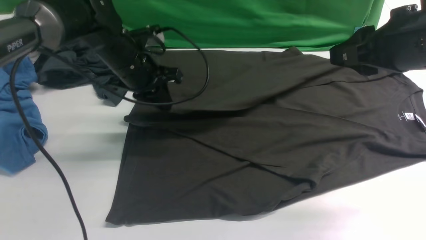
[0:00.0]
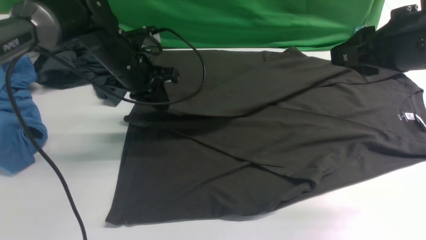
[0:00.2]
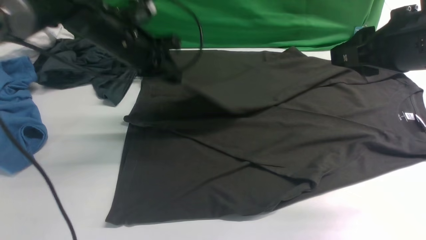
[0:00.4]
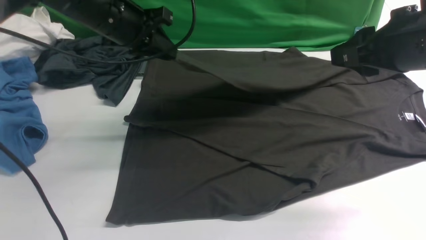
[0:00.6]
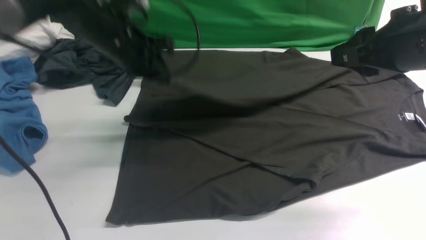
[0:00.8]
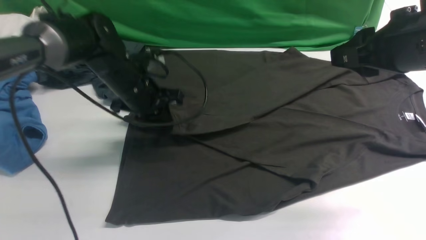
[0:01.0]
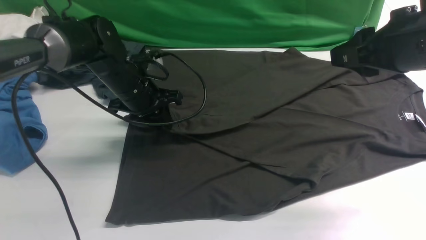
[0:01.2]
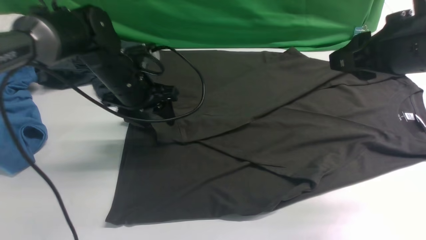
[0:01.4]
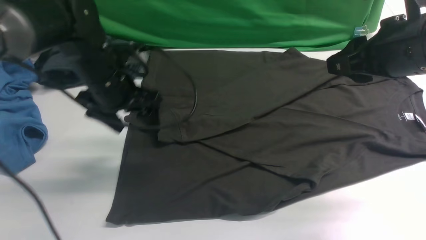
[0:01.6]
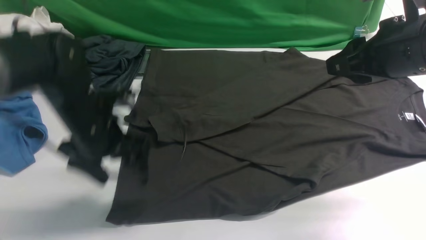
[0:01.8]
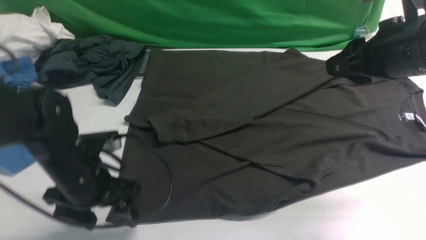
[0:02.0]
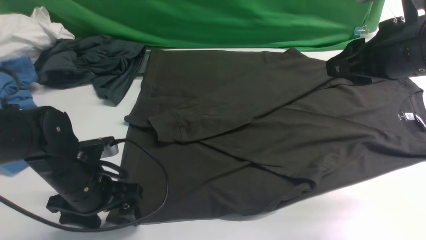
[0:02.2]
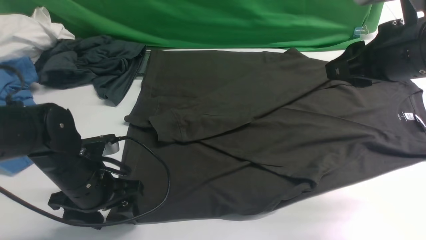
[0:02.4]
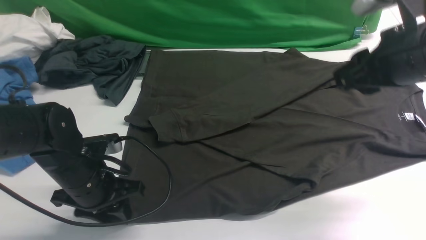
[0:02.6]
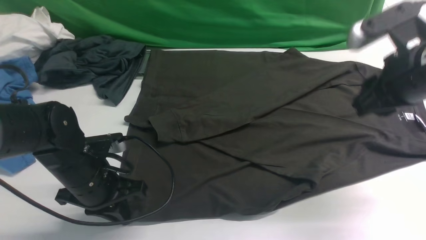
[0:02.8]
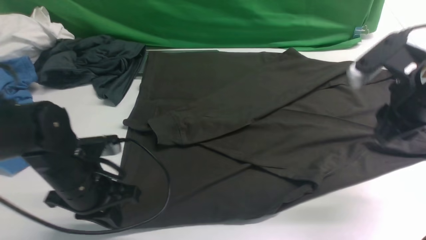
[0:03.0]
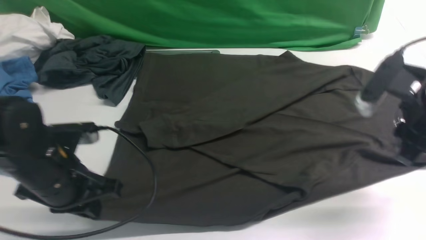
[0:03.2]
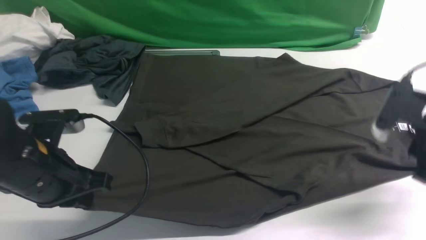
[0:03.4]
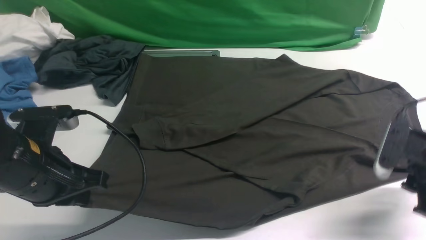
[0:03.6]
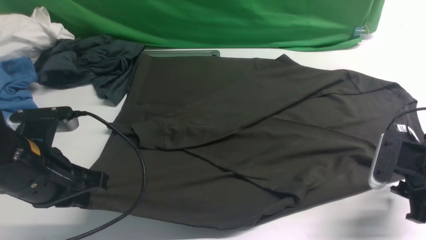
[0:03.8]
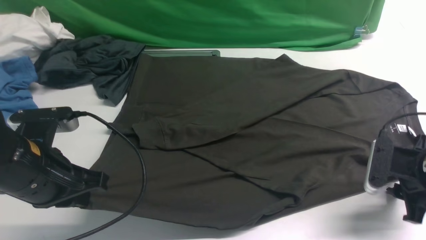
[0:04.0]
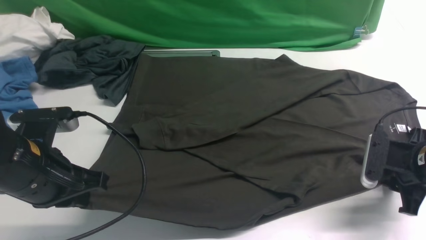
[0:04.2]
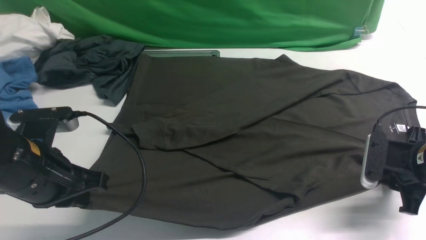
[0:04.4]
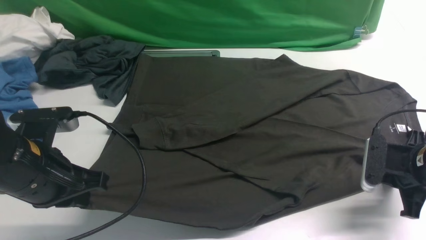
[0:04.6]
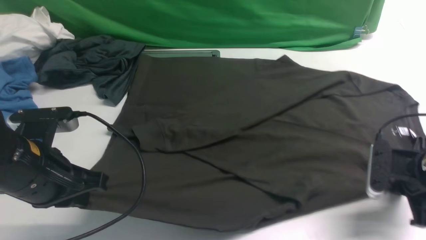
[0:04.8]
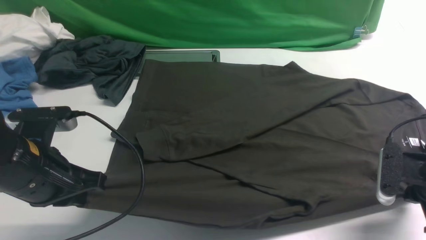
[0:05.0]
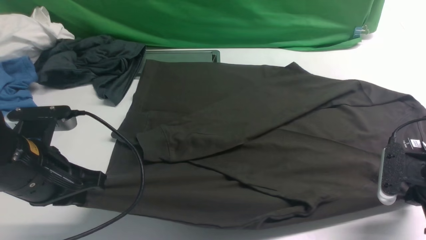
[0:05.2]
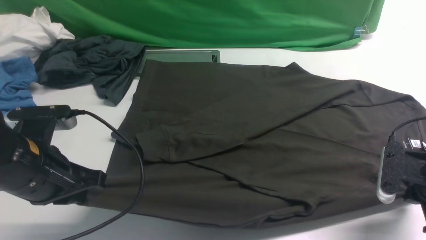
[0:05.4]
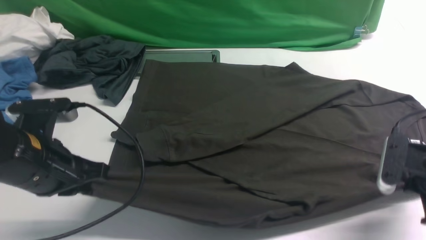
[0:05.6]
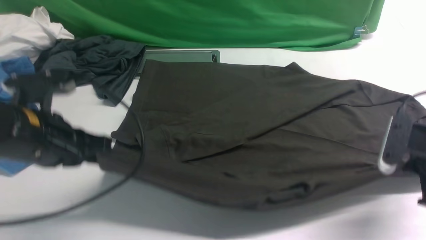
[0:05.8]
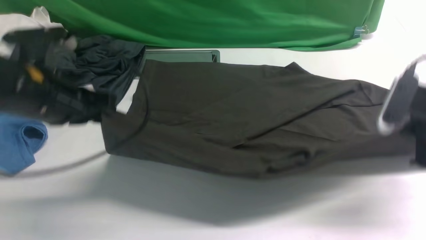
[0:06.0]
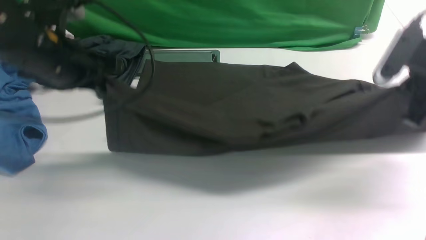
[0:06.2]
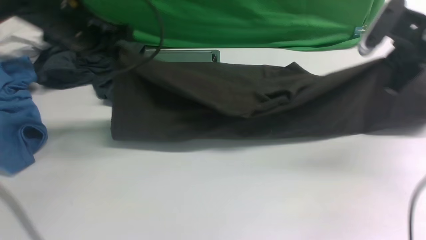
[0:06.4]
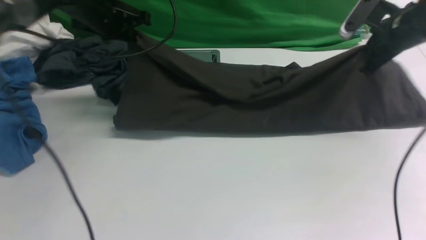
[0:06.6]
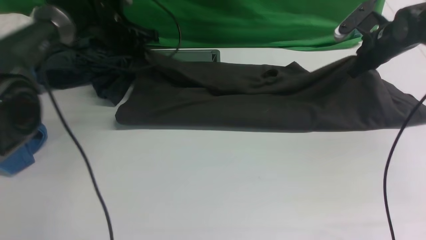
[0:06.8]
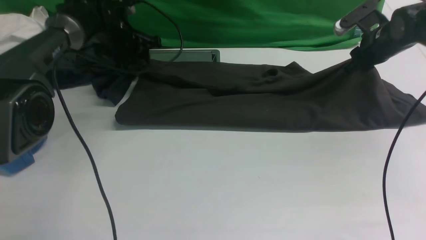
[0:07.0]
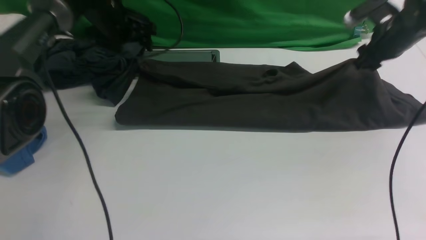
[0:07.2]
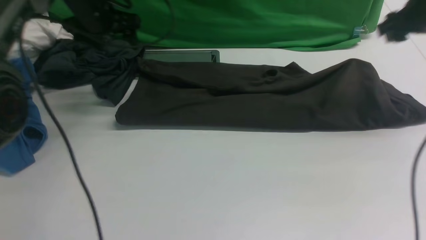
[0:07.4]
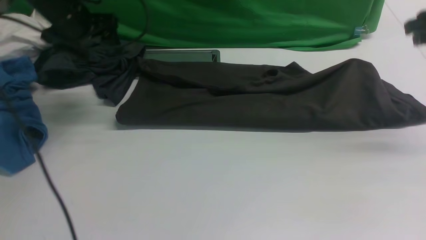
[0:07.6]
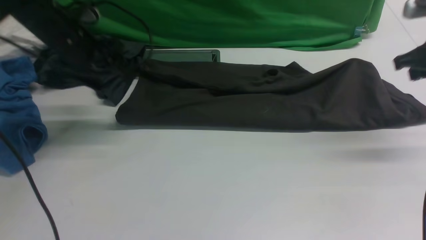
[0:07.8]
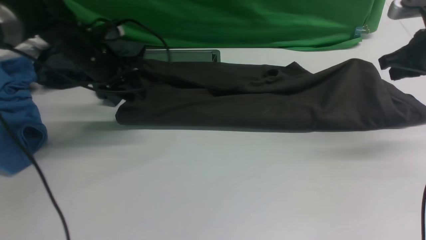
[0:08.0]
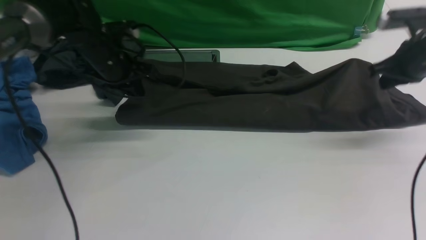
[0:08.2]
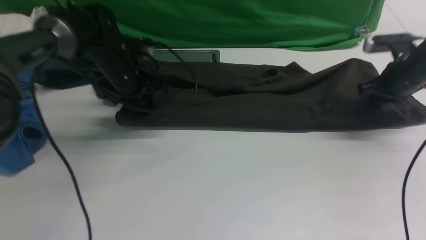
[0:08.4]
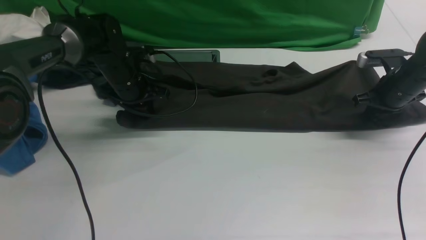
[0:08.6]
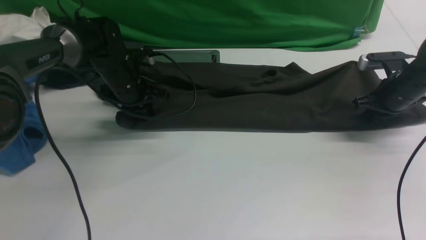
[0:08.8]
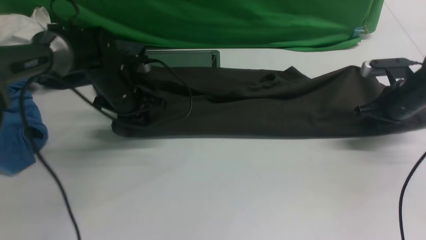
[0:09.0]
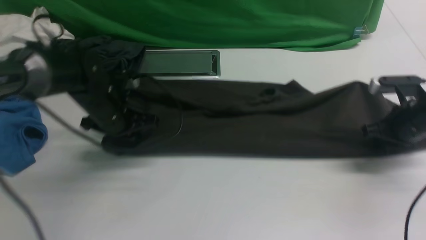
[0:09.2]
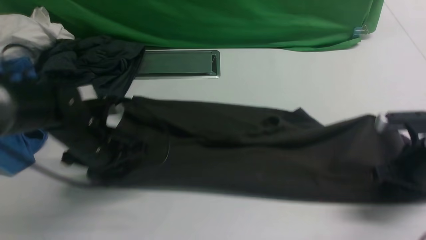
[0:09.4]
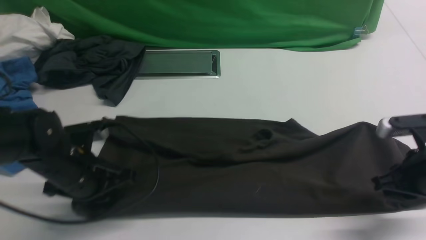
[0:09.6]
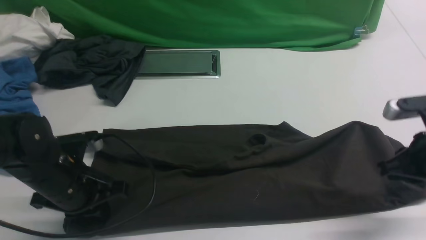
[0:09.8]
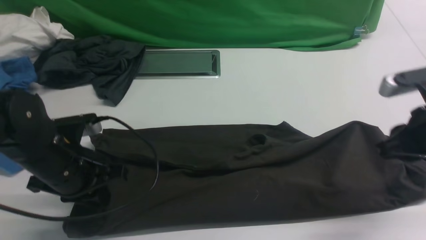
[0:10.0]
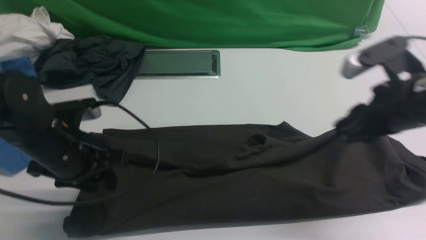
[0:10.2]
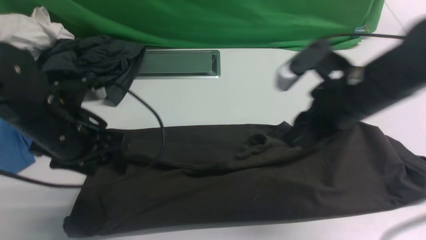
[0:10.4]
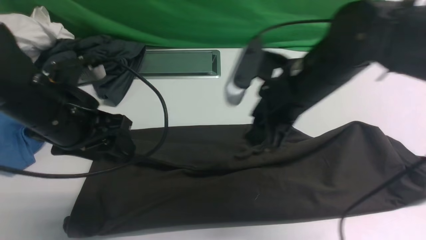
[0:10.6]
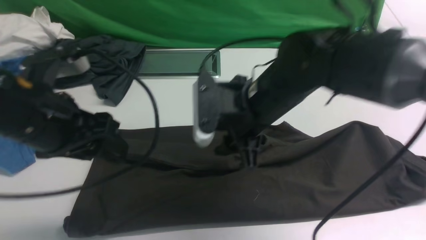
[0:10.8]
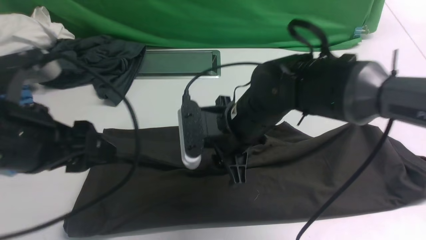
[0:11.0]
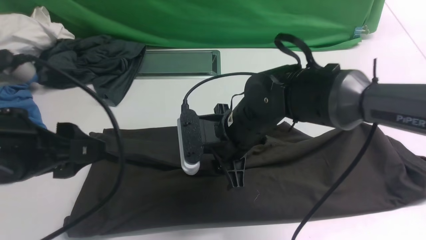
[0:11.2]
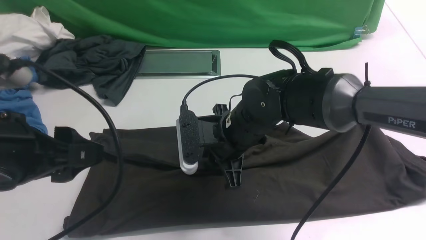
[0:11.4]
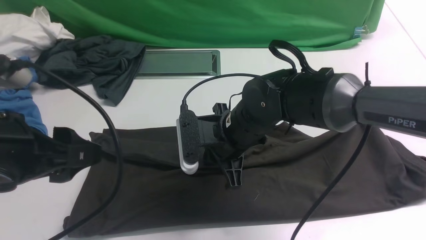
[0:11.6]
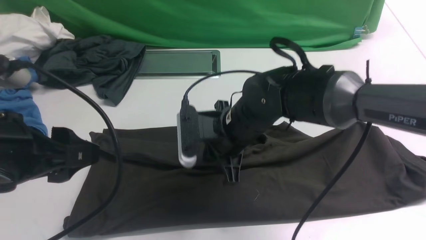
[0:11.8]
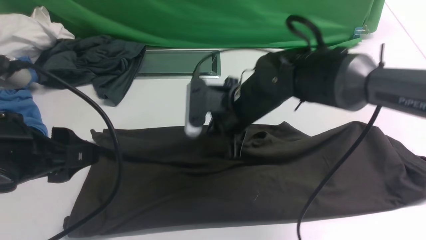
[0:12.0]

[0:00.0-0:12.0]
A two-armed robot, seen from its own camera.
Step, 0:00.0 to 0:01.4: use the left arm to drag and drop the cuff onto the cuff closest to the left arm.
Step, 0:01.6 to 0:05.4: use both arms simultaneously to clamp the lower edge of the clothing fabric.
Step, 0:05.6 to 0:07.2: use both arms to drag the lower edge of the fabric forward and fold it over the upper edge.
0:00.0 to 0:01.6: The left gripper travels backward by roughly 5 cm, goes upward and returns, roughly 5 cm each way, and opens up.
0:01.6 to 0:03.0: The left gripper shifts some 10 cm backward, and closes up. The right gripper heads downward, covering about 5 cm.
0:03.0 to 0:04.4: The left gripper heads upward, covering about 5 cm; the right gripper is displaced downward by approximately 15 cm.
0:04.4 to 0:06.0: The right gripper heads upward, covering some 10 cm, and closes up. The left gripper shifts about 10 cm forward and upward.
0:06.0 to 0:07.6: The right gripper goes roughly 15 cm forward and upward, and opens. Meanwhile the left gripper travels forward by approximately 20 cm, and opens its fingers.
0:07.6 to 0:09.0: The left gripper goes about 15 cm downward, to the right and backward, and closes up, while the right gripper moves downward, some 15 cm, and closes up.
0:09.0 to 0:10.4: The left gripper shifts about 20 cm backward and upward, and opens up. Meanwhile the right gripper travels to the left, upward and backward by about 25 cm, and opens its fingers.
0:10.4 to 0:12.0: The left gripper is displaced backward and upward by approximately 15 cm. The right gripper goes some 15 cm to the left, downward and forward, and closes its fingers.

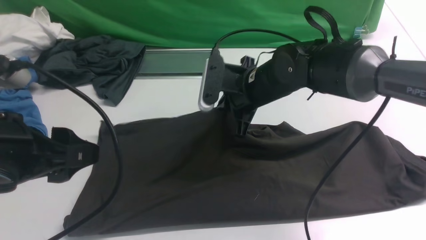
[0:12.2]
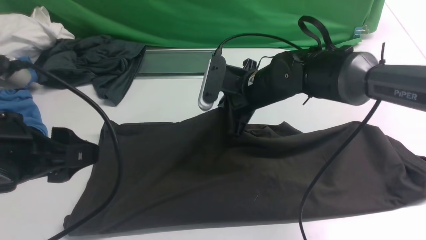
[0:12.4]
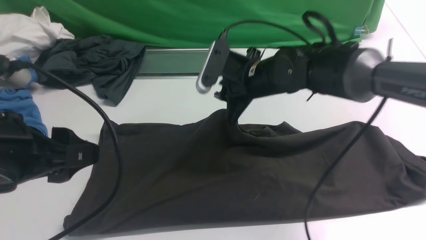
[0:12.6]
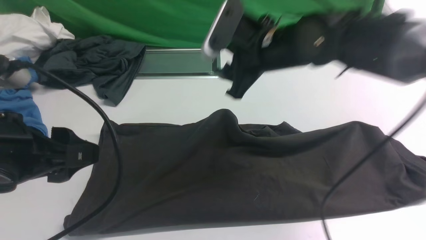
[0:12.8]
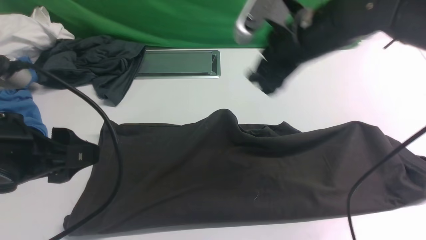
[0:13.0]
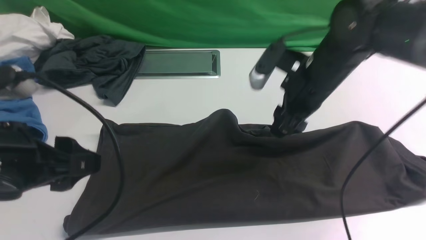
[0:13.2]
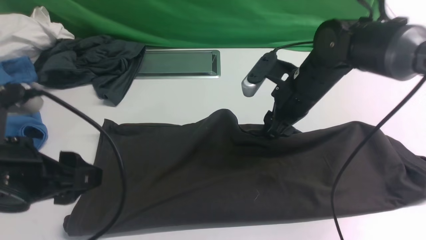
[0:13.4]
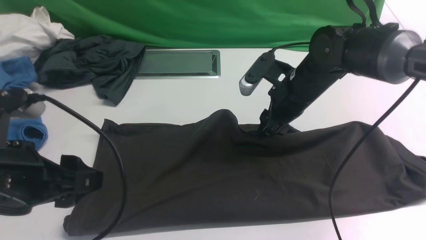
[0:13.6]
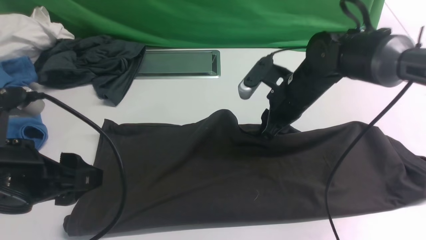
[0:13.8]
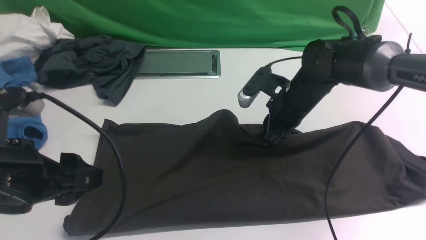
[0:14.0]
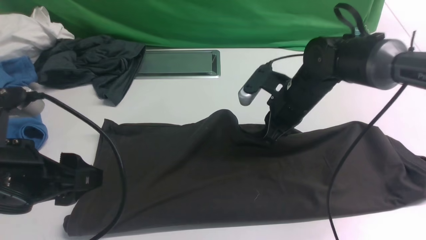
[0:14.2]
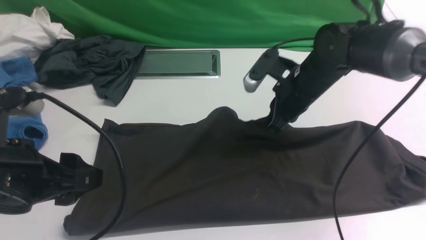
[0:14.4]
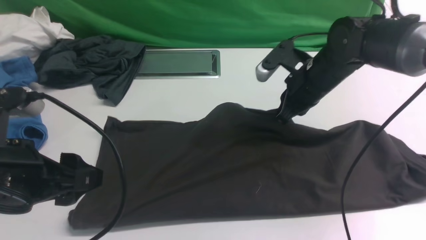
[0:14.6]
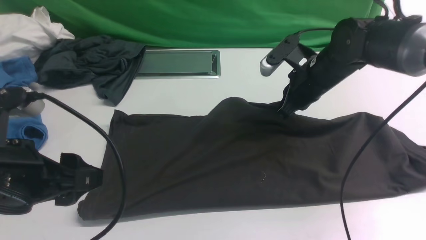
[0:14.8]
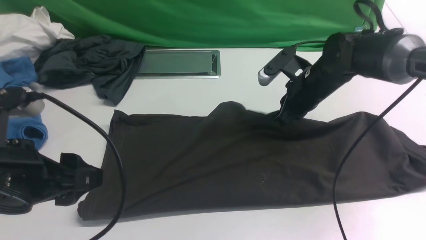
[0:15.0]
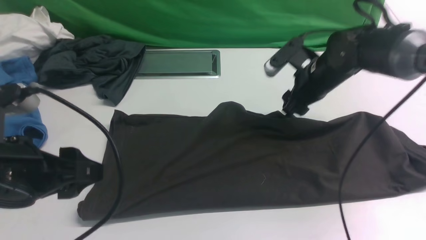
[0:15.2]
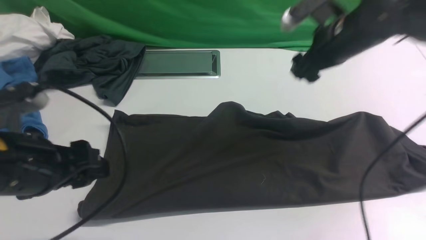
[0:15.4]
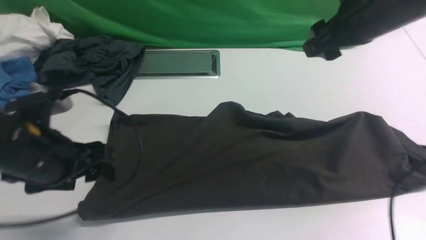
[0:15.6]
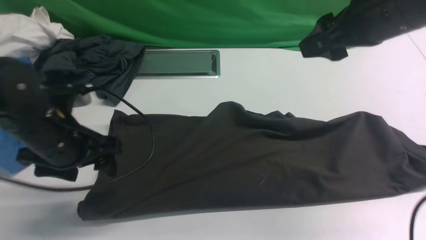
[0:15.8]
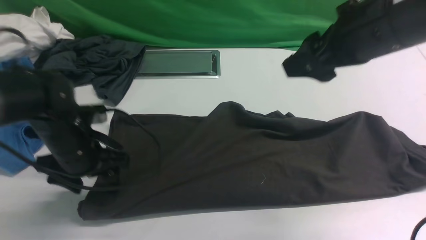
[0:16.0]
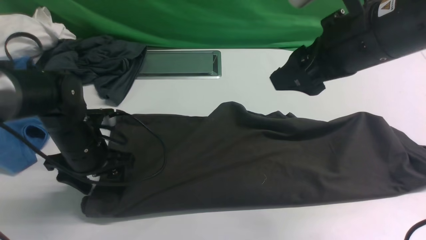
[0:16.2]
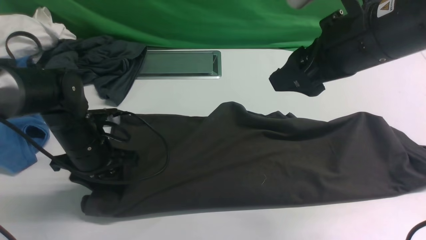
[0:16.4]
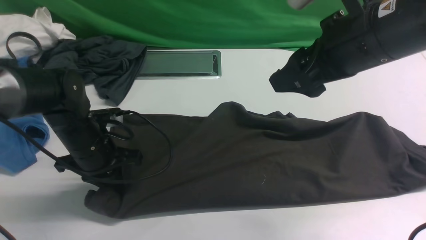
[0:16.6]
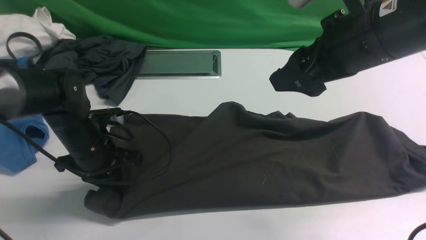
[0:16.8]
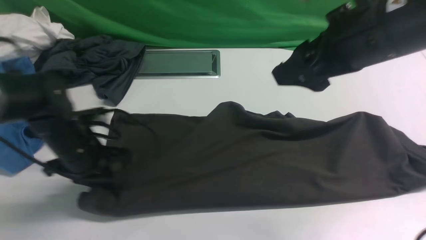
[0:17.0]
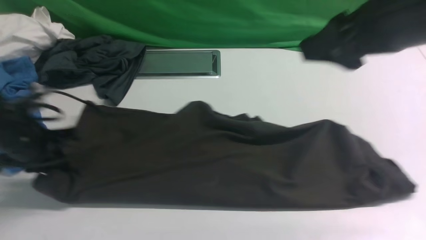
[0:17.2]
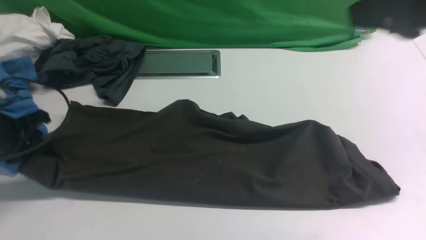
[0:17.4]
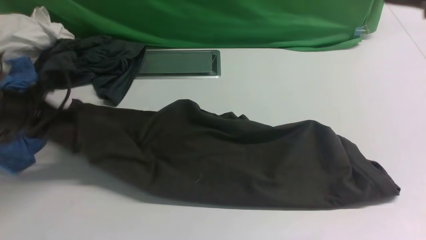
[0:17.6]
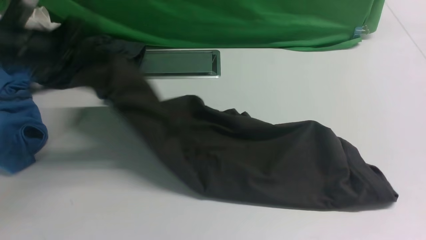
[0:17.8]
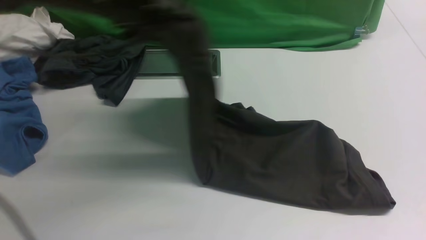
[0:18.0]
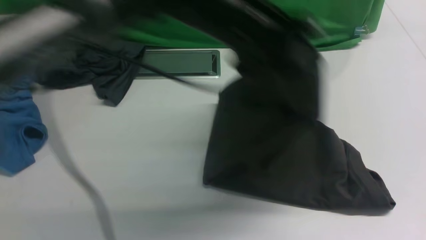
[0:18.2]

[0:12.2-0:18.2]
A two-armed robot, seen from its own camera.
Step, 0:12.2 to 0:17.0: Hold the left edge of the fabric with your left arm.
0:12.2 to 0:13.8: The right gripper heads to the right, covering roughly 5 cm, reaches approximately 5 cm upward, then returns, and opens its fingers.
0:13.8 to 0:15.2: The right gripper moves about 5 cm, and opens its fingers.
0:15.2 to 0:16.6: The right gripper travels backward and upward by approximately 20 cm; the left gripper shifts approximately 20 cm downward and forward, and closes up.
0:16.6 to 0:18.2: The left gripper moves to the right and upward, about 30 cm. Meanwhile the right gripper travels upward, backward and to the right by approximately 15 cm, and closes up.
